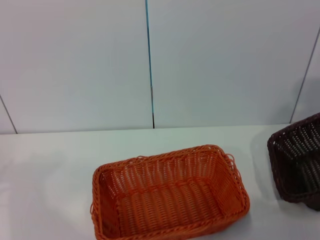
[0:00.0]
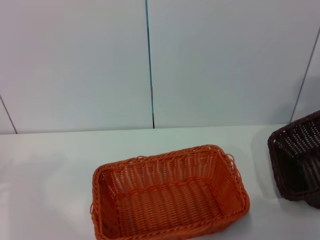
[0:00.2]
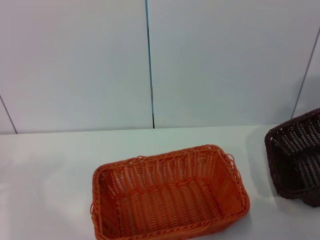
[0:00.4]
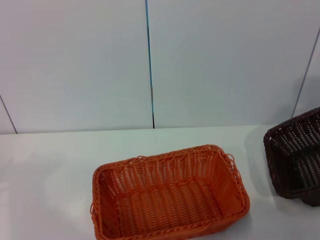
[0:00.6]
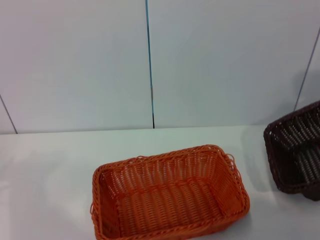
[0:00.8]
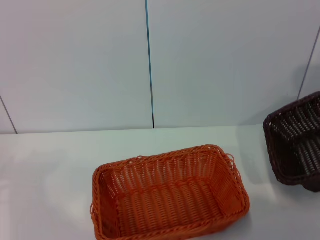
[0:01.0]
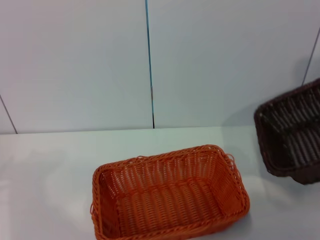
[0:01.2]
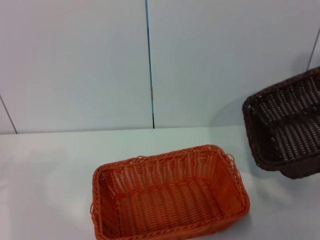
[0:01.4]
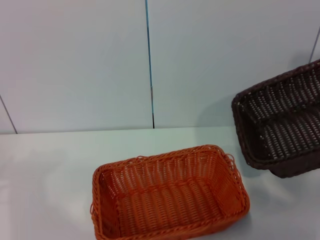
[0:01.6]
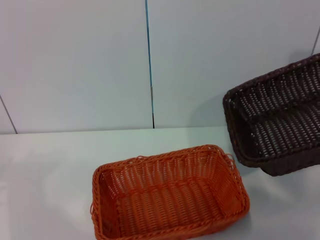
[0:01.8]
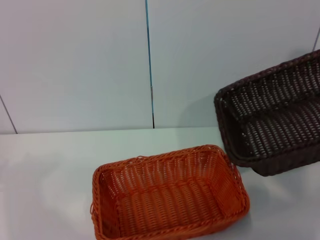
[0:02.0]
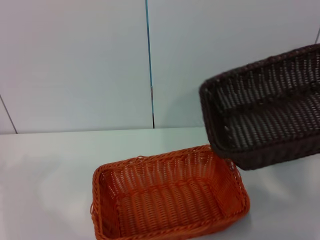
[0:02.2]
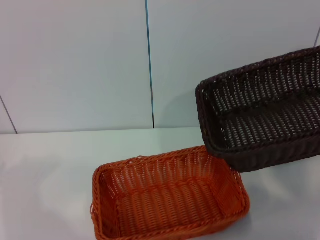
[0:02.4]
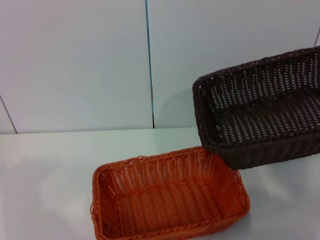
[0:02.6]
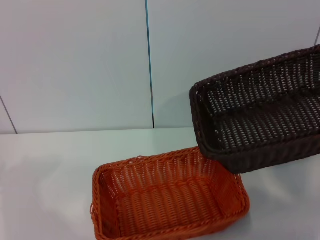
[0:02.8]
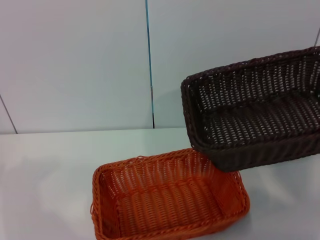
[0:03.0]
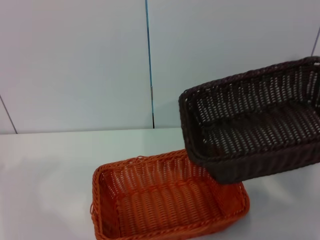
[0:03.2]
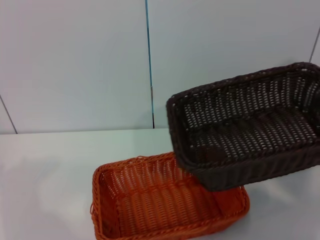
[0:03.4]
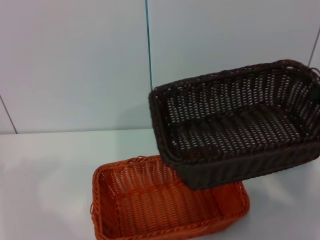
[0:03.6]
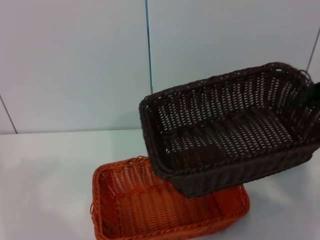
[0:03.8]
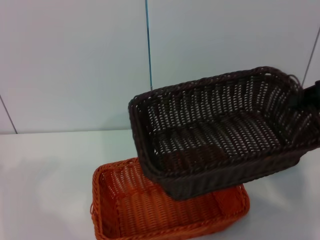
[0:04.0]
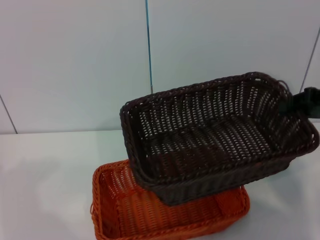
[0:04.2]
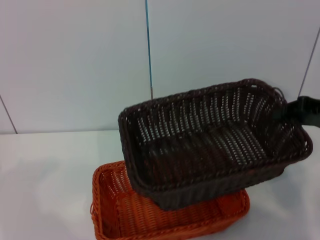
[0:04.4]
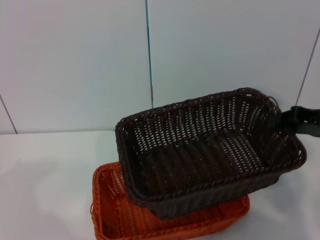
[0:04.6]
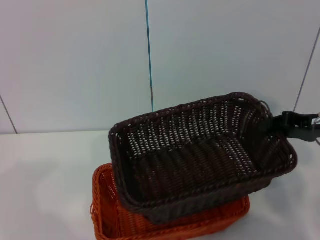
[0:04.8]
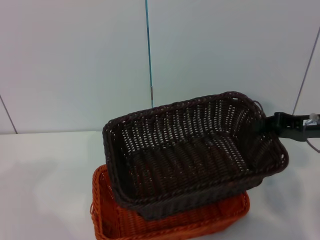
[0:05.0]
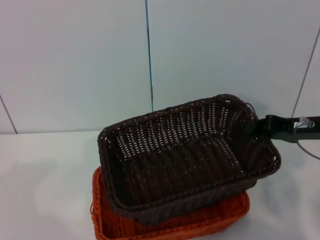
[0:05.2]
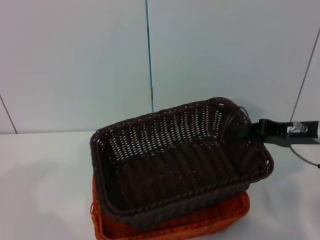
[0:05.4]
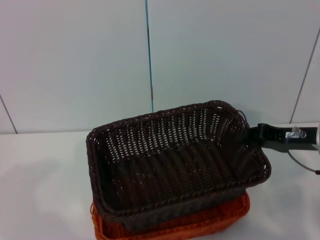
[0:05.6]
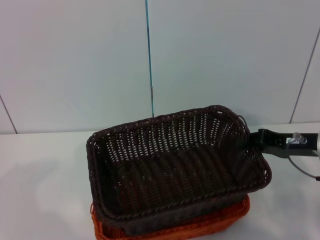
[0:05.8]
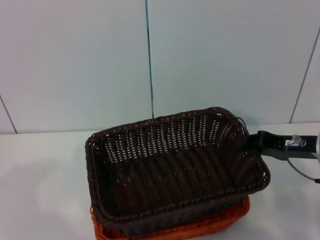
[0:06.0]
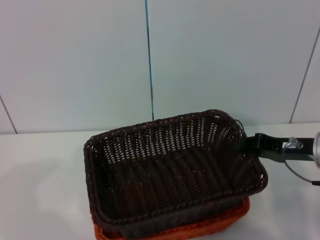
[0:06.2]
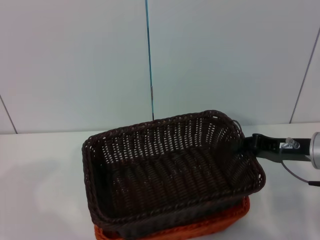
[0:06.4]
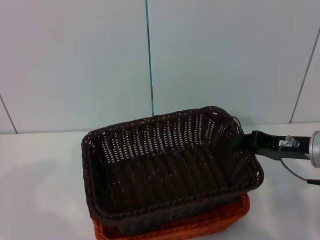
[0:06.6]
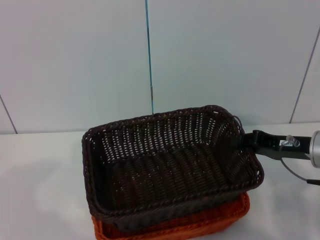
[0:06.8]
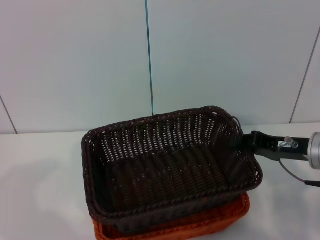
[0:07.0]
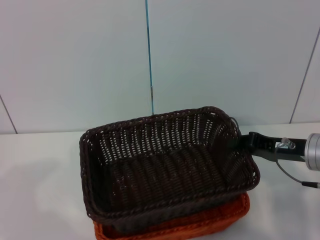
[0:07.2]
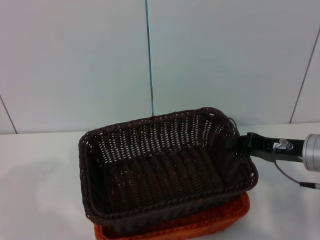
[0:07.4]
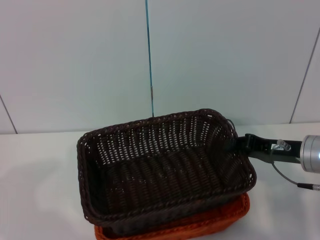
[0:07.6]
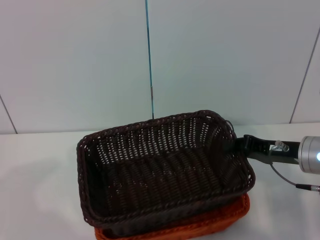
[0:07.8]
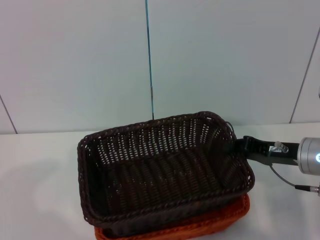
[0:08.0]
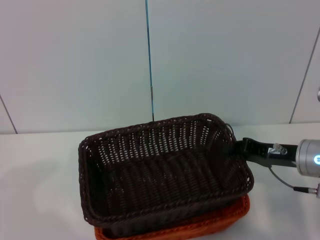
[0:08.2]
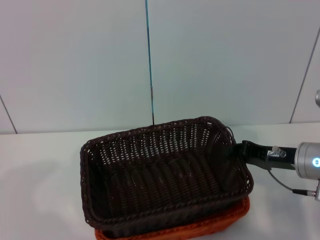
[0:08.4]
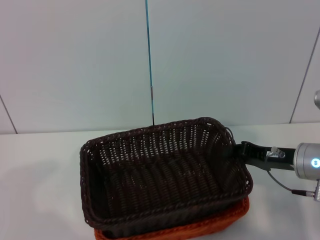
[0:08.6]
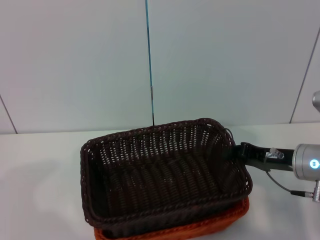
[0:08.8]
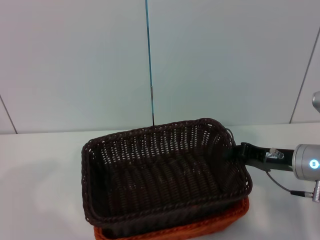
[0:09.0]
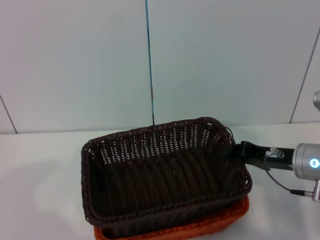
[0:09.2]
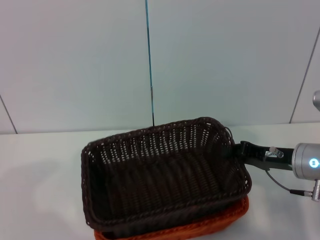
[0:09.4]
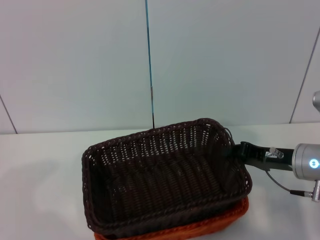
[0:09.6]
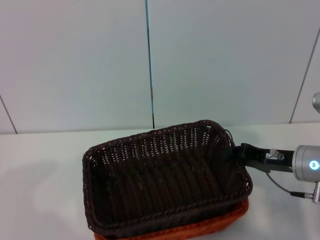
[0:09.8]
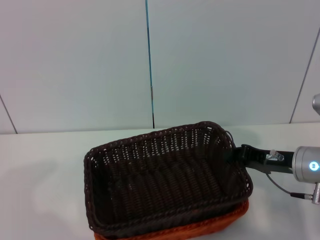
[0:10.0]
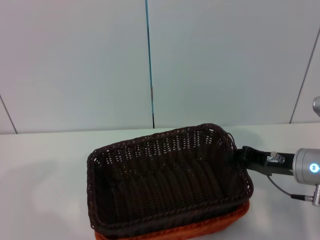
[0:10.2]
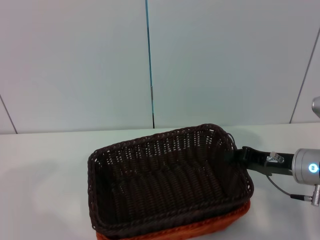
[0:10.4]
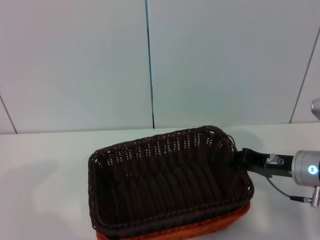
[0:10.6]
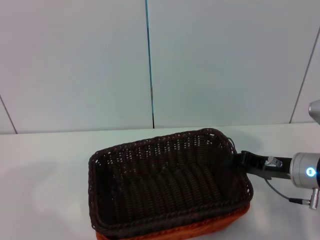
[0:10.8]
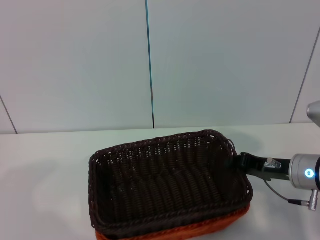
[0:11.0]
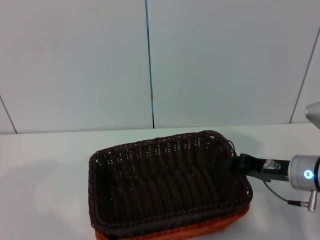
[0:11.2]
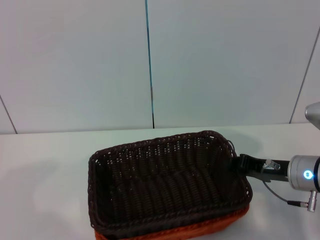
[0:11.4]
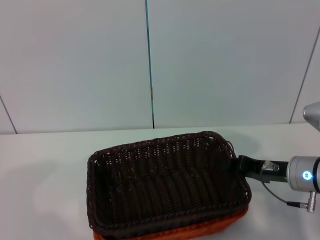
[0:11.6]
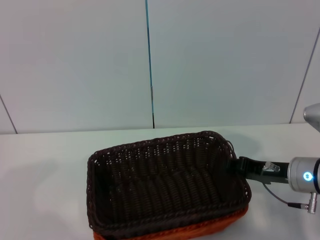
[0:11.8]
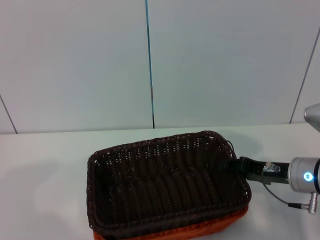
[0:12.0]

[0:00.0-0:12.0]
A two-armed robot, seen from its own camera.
0:00.0 to 0:01.6: The right gripper goes approximately 5 cm upward.
0:03.0 to 0:04.4: The right gripper shifts some 10 cm downward and to the left.
0:04.4 to 0:06.0: The right gripper goes approximately 5 cm downward.
0:06.0 to 0:09.0: There are only small adjustments of the grippers.
0:09.0 to 0:10.4: Both grippers stay put.
0:10.4 to 0:12.0: The two grippers keep their place.

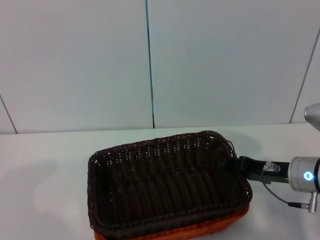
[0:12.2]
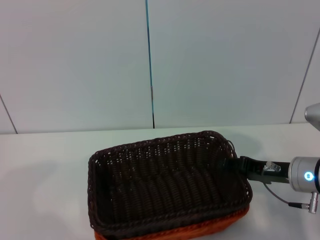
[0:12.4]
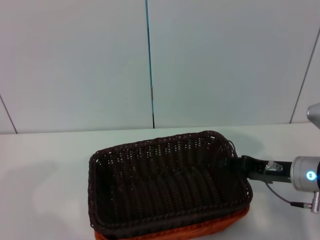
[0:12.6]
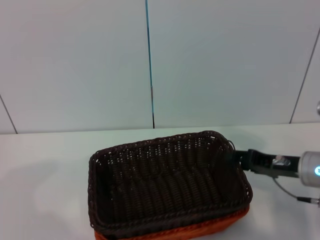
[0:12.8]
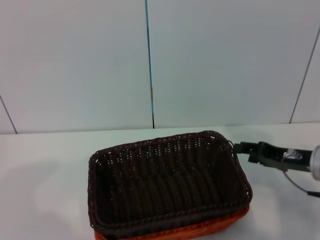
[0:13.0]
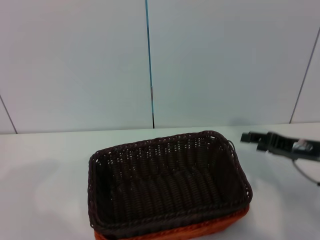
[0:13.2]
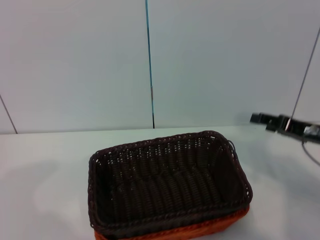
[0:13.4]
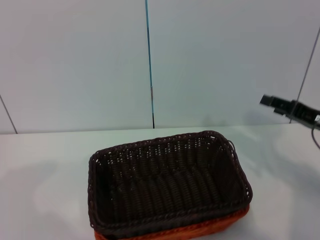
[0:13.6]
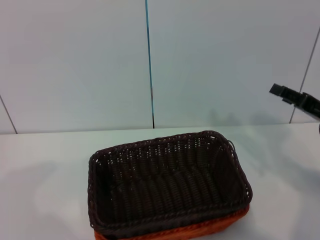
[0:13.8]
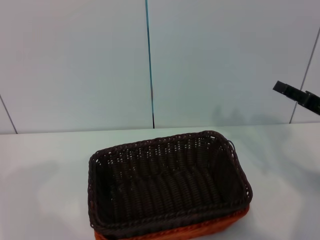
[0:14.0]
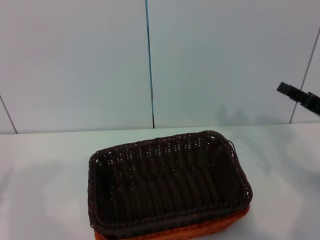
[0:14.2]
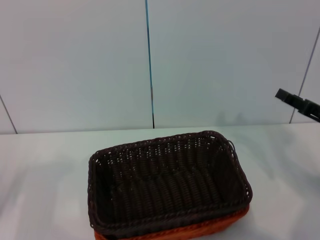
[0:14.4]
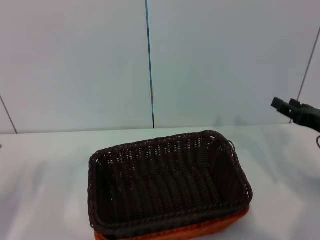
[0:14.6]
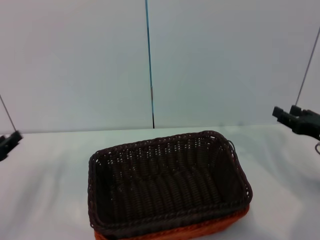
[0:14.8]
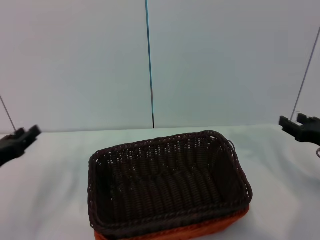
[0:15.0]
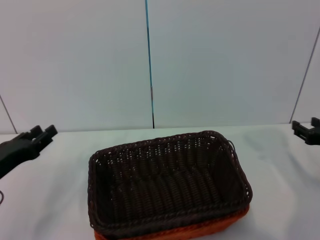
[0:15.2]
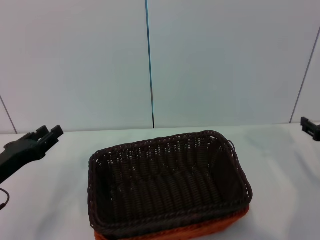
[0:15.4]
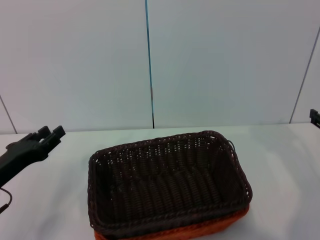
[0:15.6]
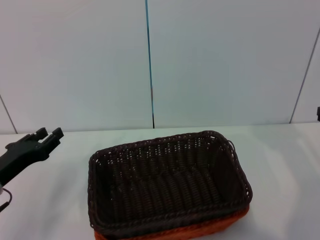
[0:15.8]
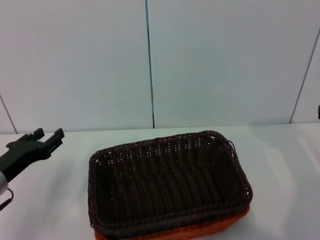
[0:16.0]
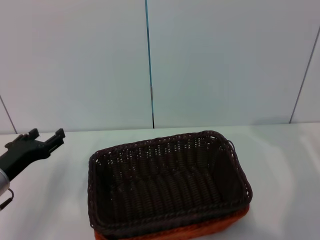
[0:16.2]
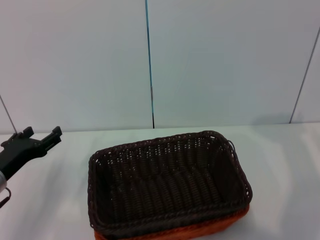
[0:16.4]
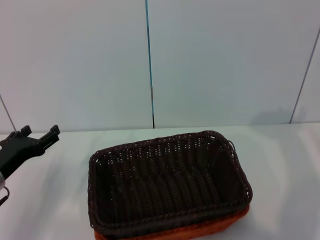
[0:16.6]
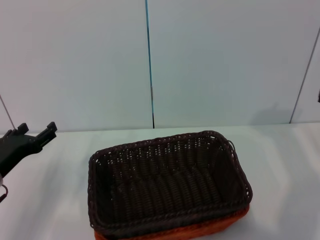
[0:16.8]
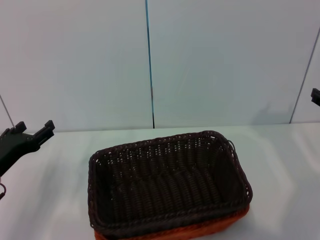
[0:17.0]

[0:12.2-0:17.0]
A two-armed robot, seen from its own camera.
0:12.2 to 0:13.8: The right gripper travels to the right and upward by about 10 cm.
0:13.8 to 0:15.4: The left gripper heads to the right, covering approximately 10 cm, while the right gripper ends up roughly 5 cm from where it was.
0:15.4 to 0:17.0: The grippers move only a little.
